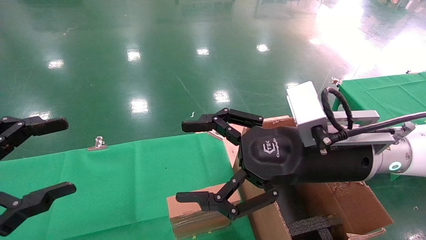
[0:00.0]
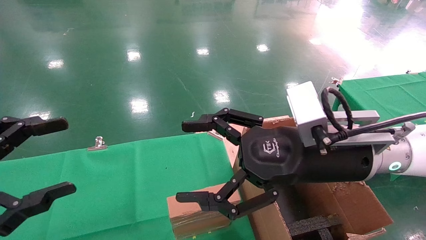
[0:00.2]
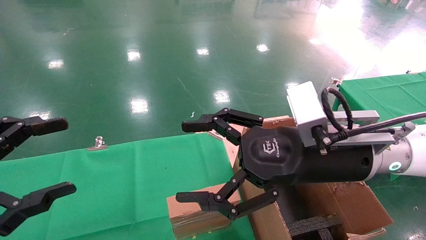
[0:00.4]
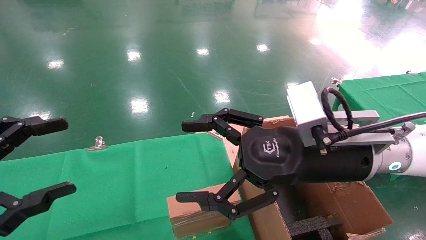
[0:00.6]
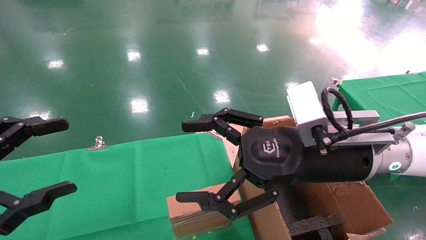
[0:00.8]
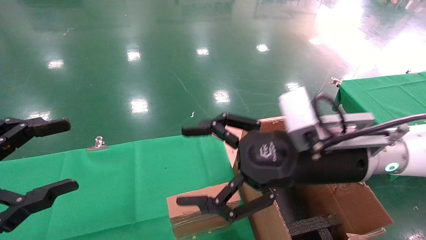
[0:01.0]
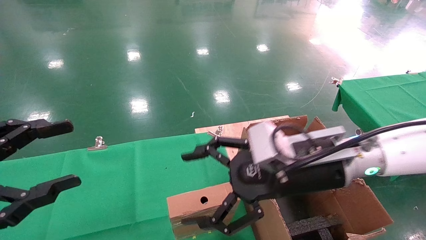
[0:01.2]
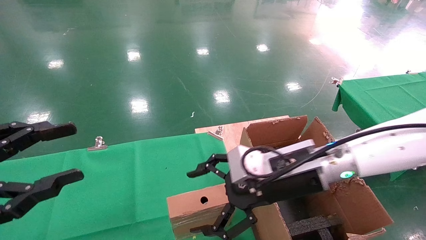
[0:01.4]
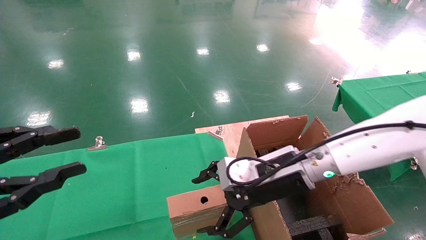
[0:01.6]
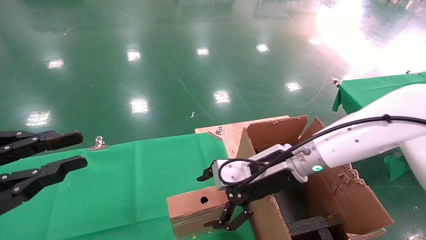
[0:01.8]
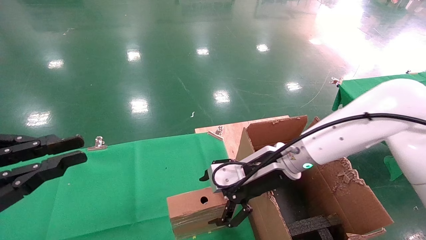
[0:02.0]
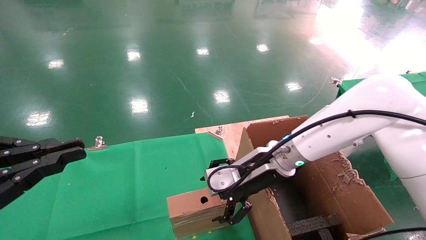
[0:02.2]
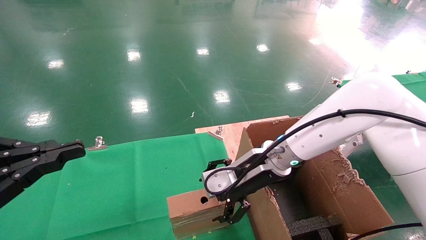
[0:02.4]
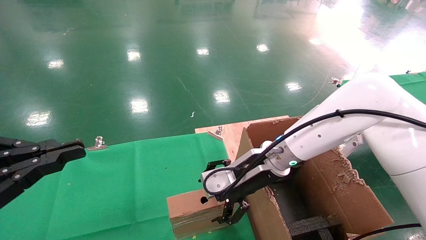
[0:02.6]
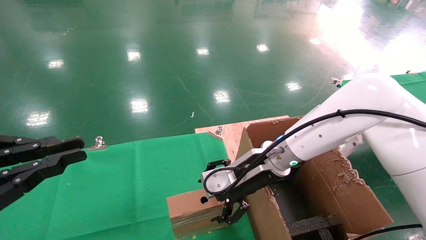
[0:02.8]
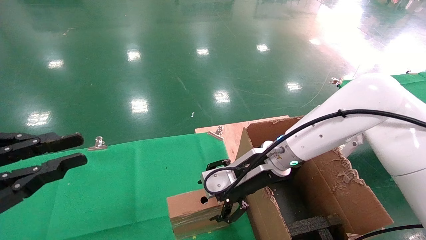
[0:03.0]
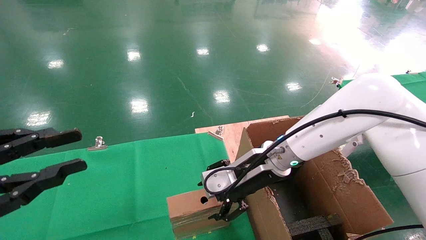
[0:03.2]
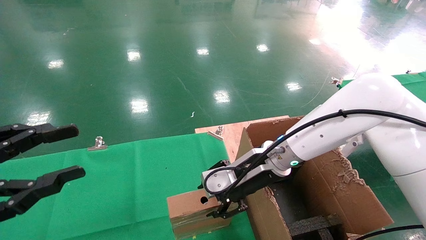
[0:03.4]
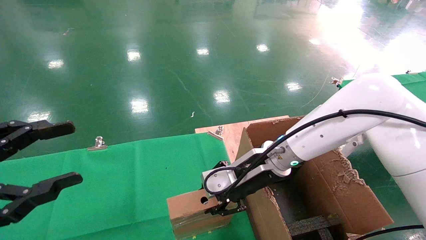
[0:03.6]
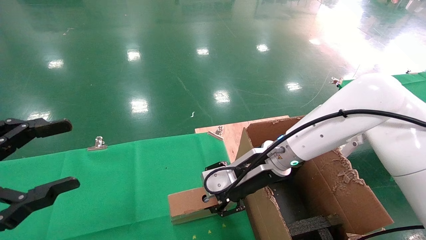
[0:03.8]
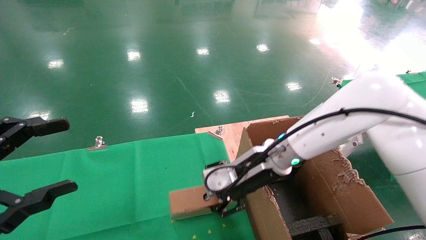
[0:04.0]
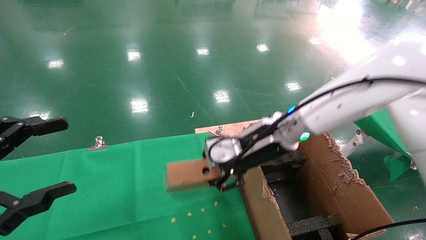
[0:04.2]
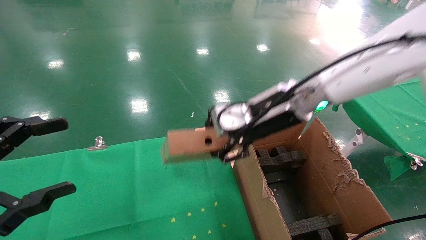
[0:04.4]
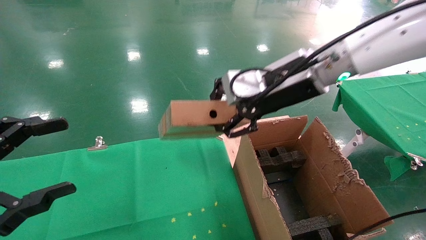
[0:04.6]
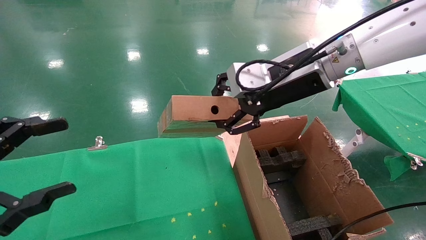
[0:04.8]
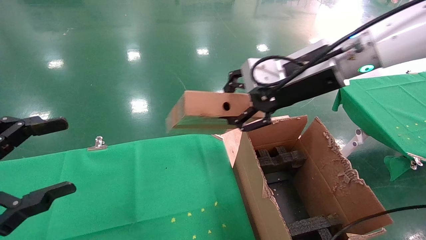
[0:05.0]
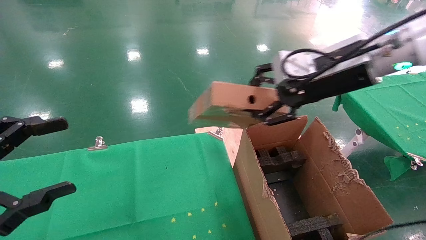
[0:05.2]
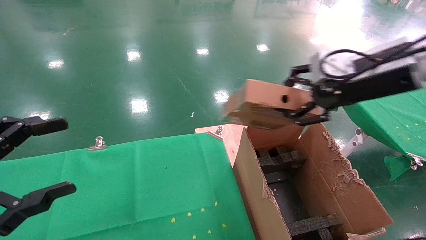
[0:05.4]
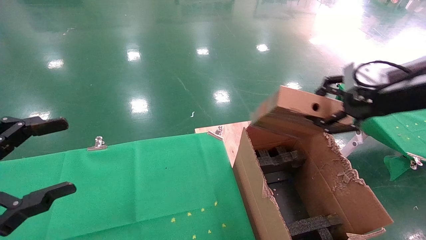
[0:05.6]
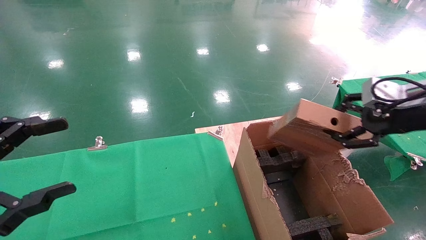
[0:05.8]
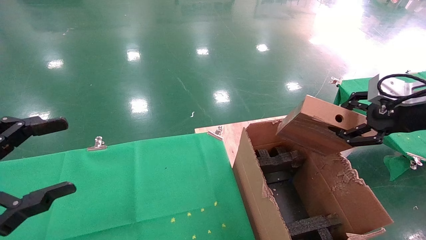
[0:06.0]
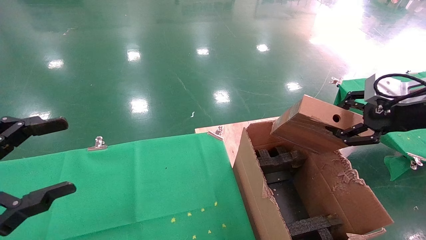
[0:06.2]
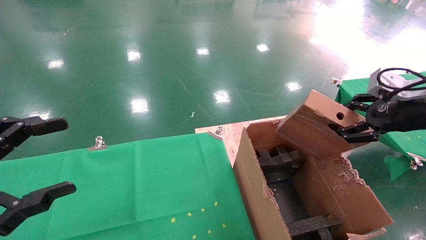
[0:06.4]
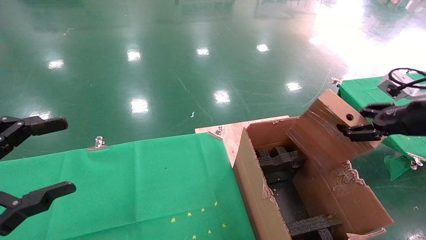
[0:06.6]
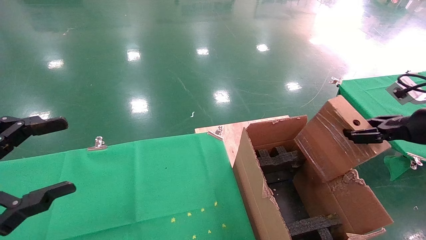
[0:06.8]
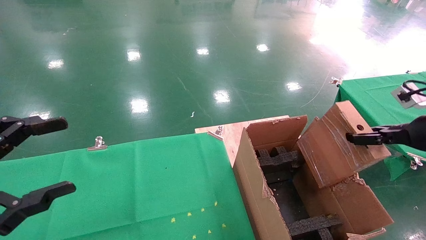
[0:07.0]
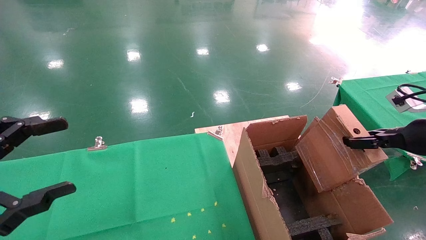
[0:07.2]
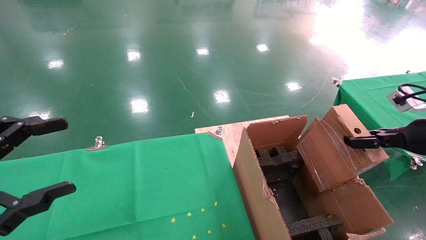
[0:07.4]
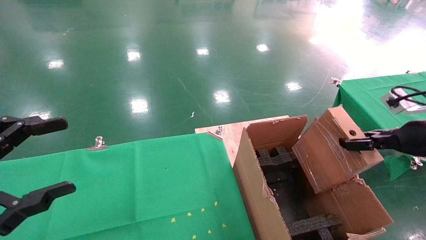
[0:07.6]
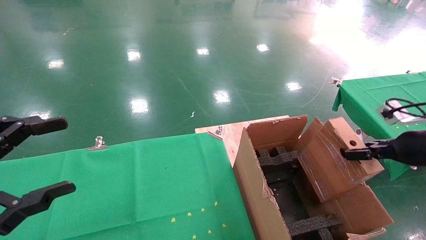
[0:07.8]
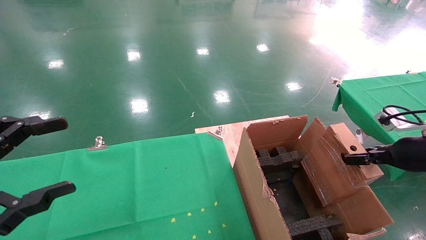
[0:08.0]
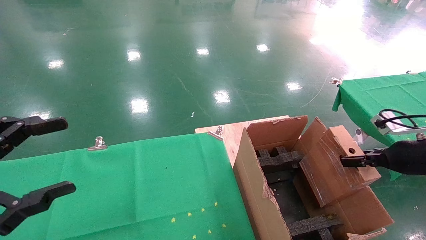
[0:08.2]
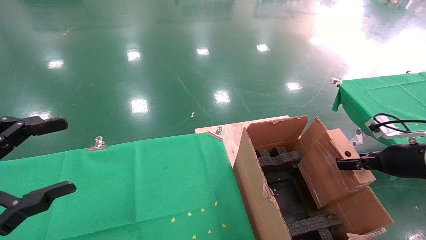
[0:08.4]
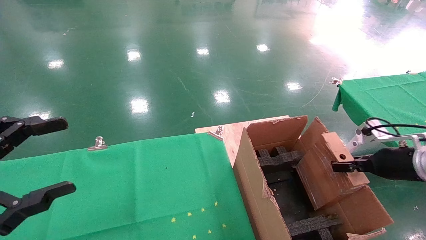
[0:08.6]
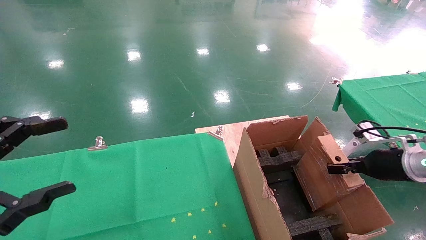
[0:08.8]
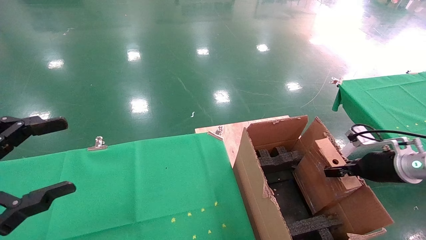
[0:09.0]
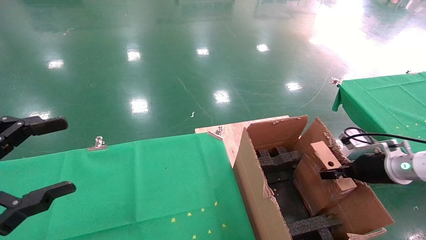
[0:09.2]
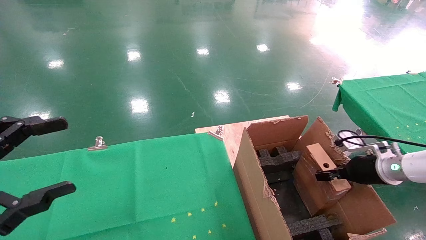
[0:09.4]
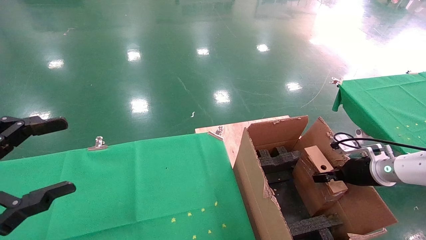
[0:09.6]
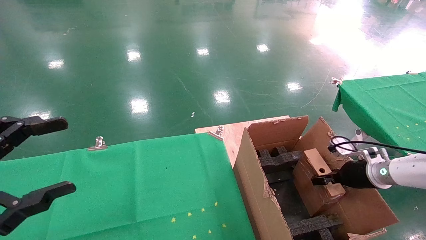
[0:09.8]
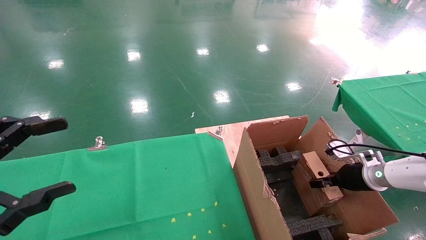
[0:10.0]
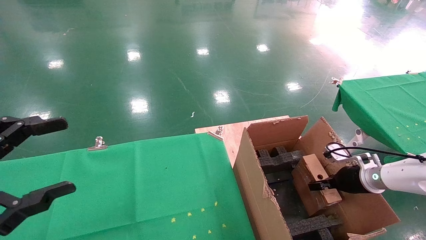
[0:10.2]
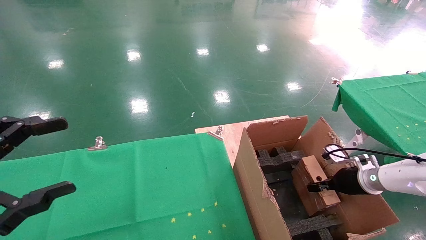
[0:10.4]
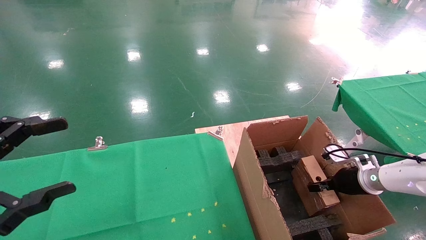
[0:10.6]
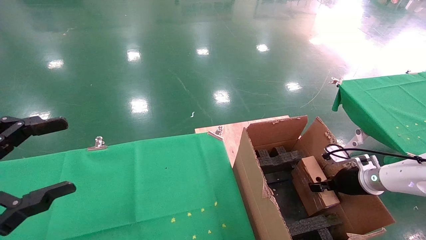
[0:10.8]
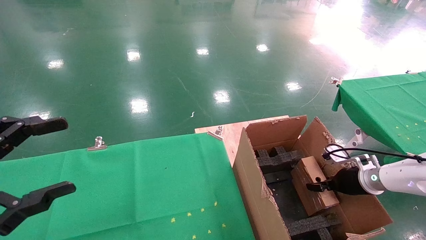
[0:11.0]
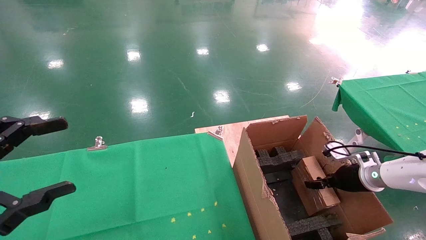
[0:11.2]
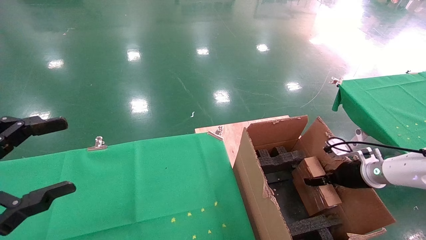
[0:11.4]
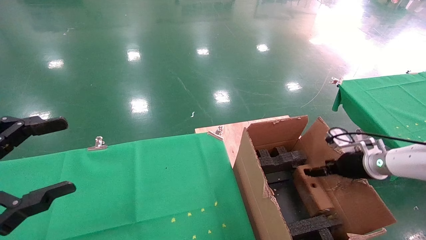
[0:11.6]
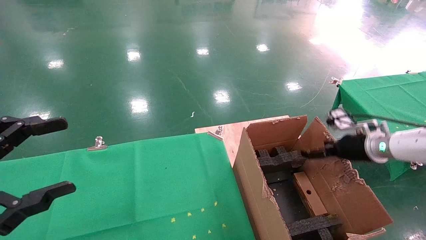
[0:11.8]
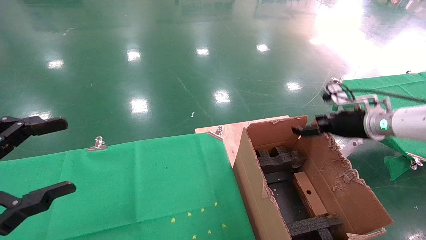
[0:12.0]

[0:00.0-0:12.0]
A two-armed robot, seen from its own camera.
Task of the whole recording: using a robotic arm to pick up a cardboard box and palace it the carton.
Step, 0:01.2 to 0:03.6: Pick up the mouse and the power cord paper box.
Step, 0:03.8 to 0:11.6: Place the mouse and the power cord paper box into the container.
0:00.0 to 0:01.6: The right gripper moves forward and downward, about 10 cm. Meanwhile the left gripper closes its fingers.
0:01.6 to 0:03.0: The left gripper closes up, while the right gripper changes place by roughly 5 cm.
0:03.0 to 0:04.4: The left gripper opens up. Meanwhile the right gripper heads upward, covering approximately 10 cm, and closes its fingers.
0:04.4 to 0:06.0: The right gripper travels to the right by some 25 cm.
0:06.0 to 0:07.6: The right gripper moves downward and to the right, about 10 cm.
0:07.6 to 0:09.0: The right gripper moves downward and forward, roughly 10 cm.
0:09.0 to 0:10.4: The right gripper shifts some 10 cm downward and forward.
0:10.4 to 0:12.0: The right gripper heads upward, covering about 15 cm, and opens up.

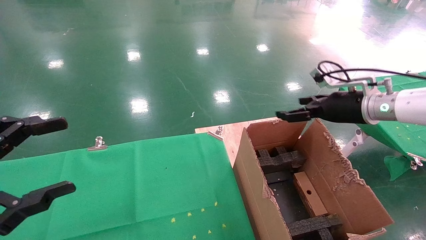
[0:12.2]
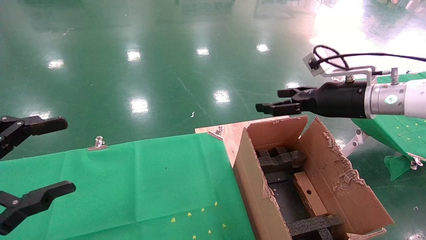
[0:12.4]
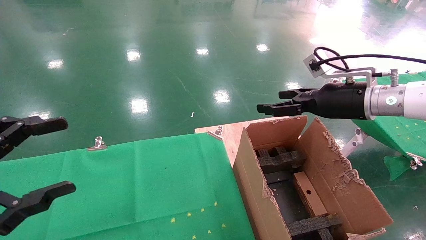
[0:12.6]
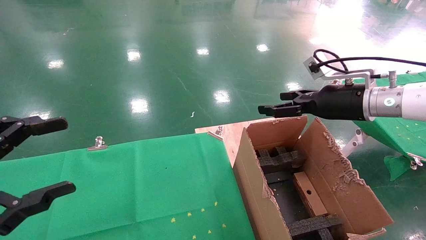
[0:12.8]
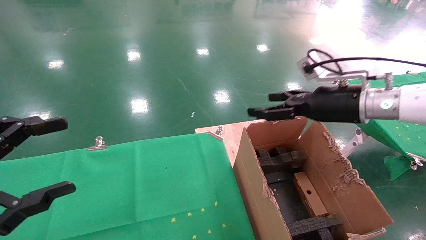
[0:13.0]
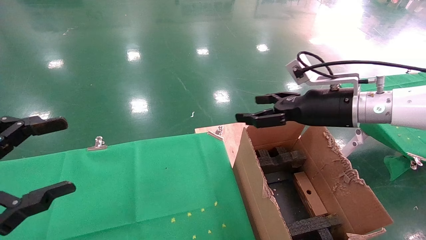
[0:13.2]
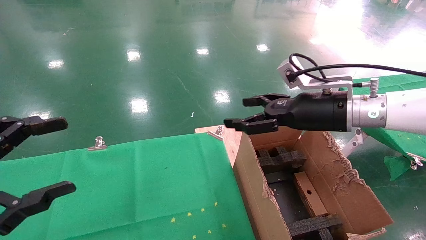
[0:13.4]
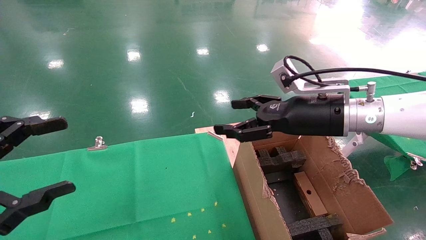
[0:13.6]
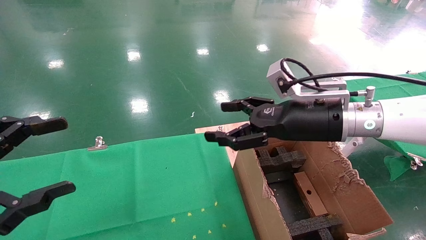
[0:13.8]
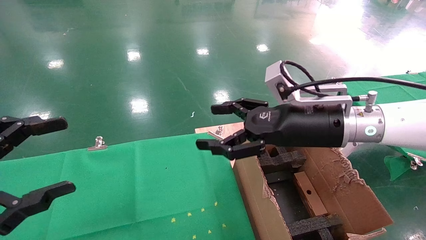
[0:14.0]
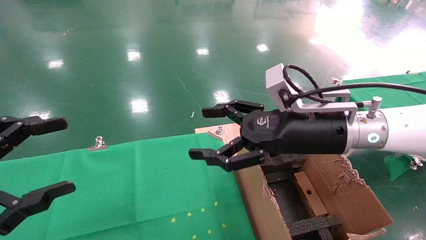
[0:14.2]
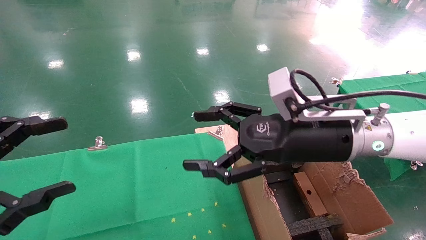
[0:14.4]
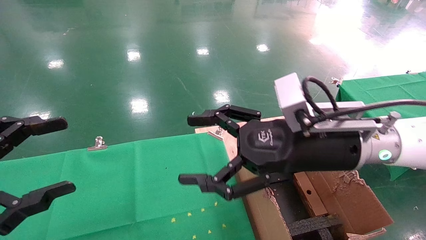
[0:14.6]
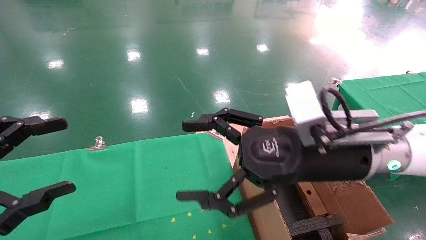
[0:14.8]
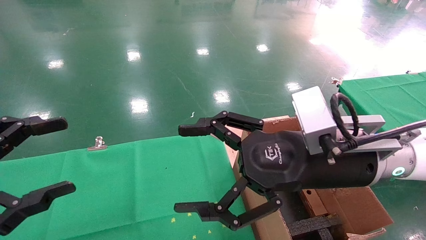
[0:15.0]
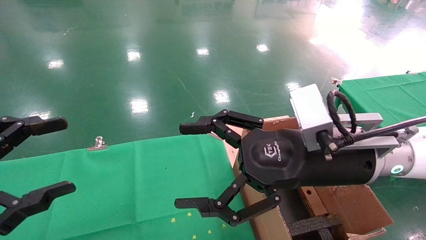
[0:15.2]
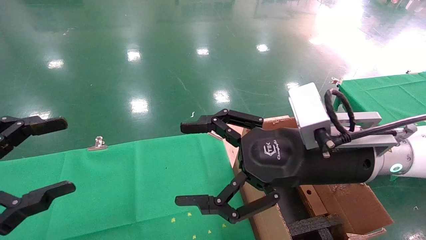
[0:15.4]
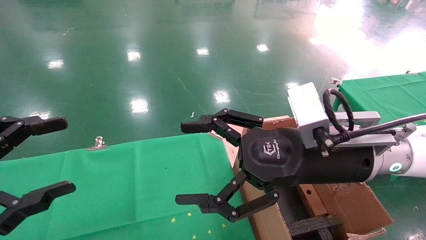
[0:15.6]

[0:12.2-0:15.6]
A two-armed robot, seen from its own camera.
Task of the whole recording: using a robotic arm to pick up a cardboard box and palace it the carton.
0:12.2 to 0:13.8: The right gripper travels to the left and backward by about 15 cm.
0:13.8 to 0:15.6: The right gripper goes some 10 cm backward.
